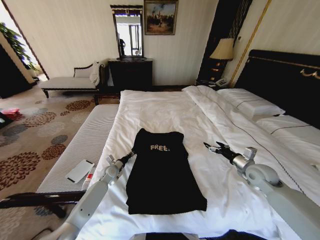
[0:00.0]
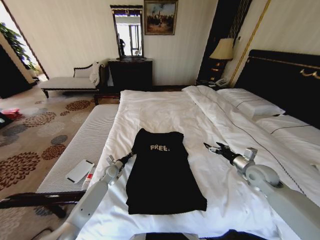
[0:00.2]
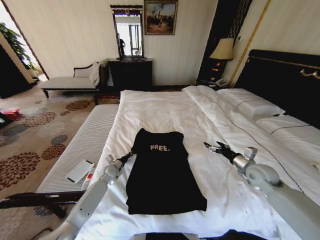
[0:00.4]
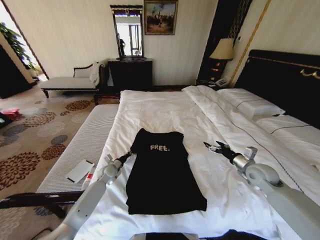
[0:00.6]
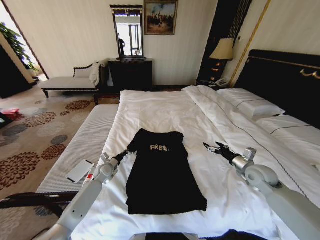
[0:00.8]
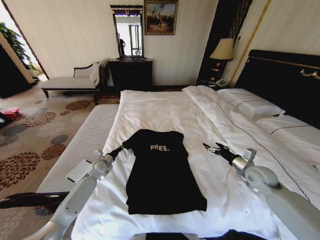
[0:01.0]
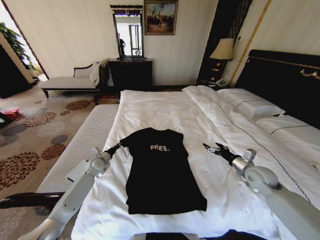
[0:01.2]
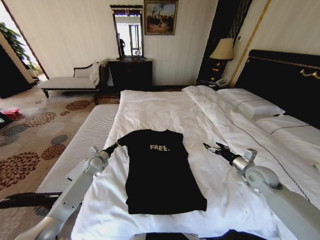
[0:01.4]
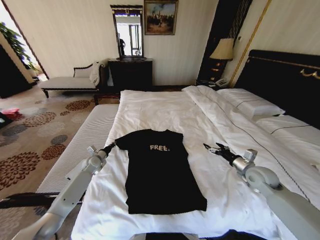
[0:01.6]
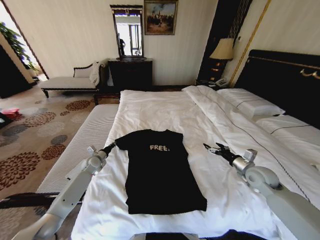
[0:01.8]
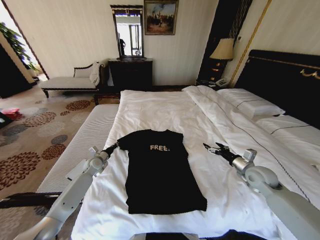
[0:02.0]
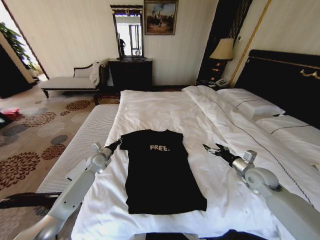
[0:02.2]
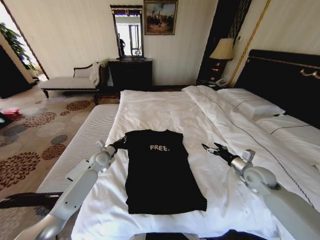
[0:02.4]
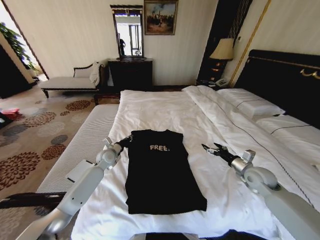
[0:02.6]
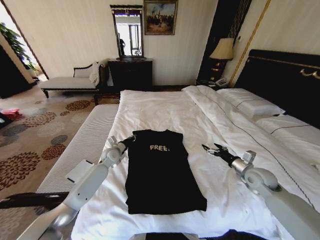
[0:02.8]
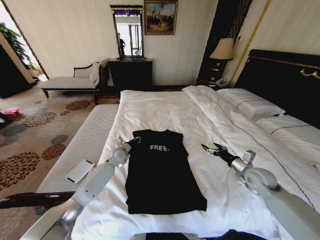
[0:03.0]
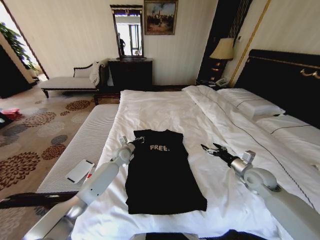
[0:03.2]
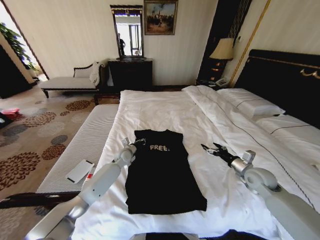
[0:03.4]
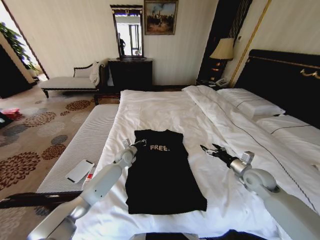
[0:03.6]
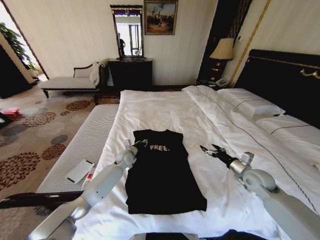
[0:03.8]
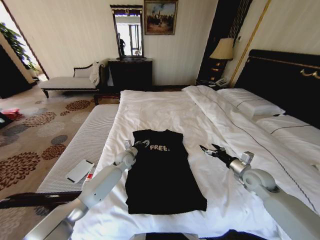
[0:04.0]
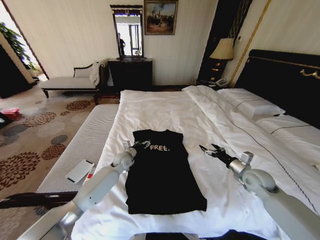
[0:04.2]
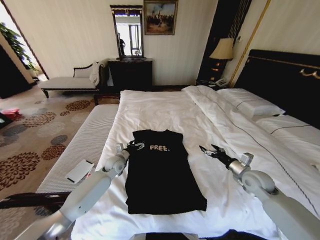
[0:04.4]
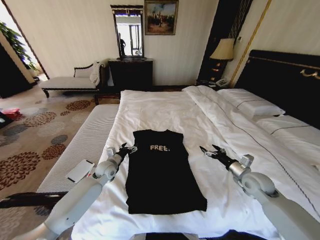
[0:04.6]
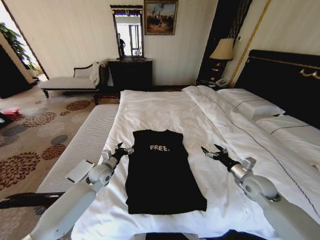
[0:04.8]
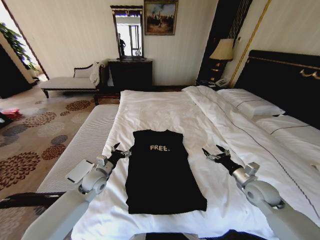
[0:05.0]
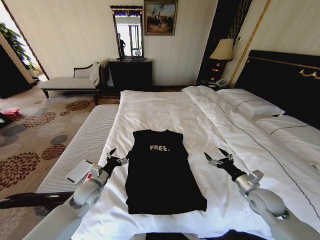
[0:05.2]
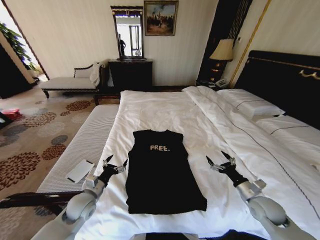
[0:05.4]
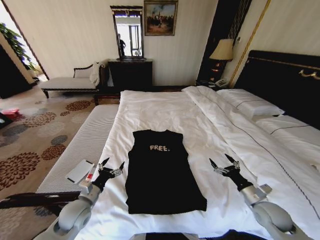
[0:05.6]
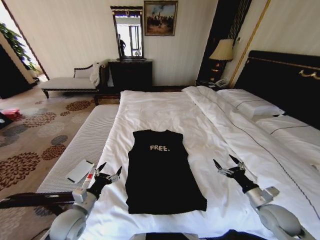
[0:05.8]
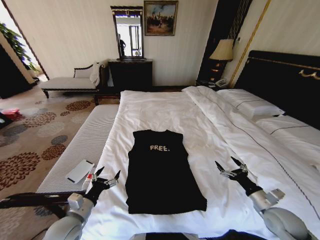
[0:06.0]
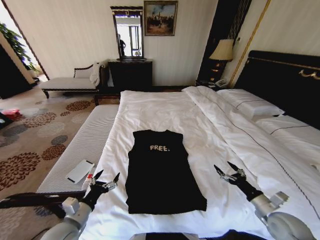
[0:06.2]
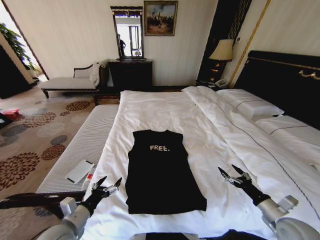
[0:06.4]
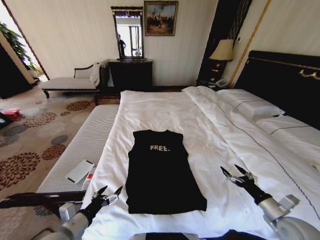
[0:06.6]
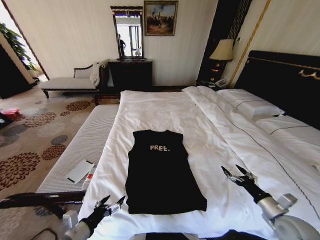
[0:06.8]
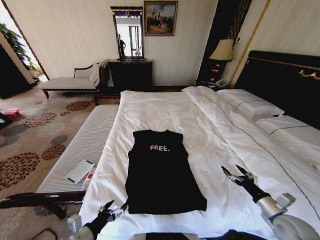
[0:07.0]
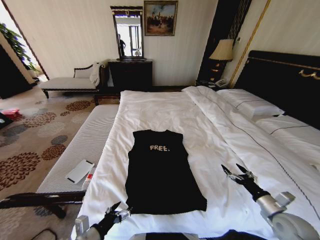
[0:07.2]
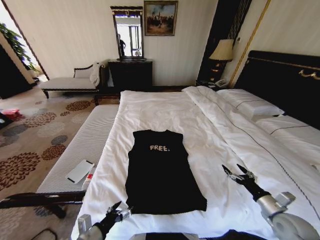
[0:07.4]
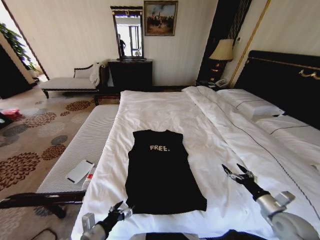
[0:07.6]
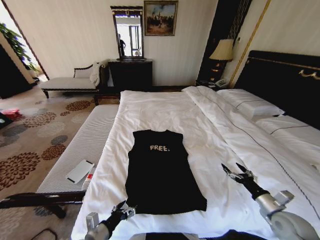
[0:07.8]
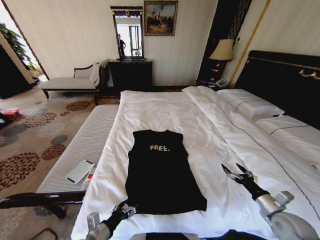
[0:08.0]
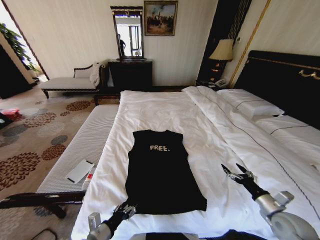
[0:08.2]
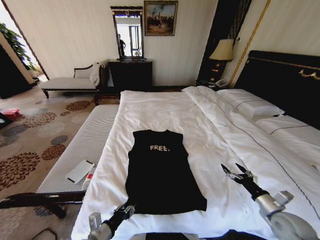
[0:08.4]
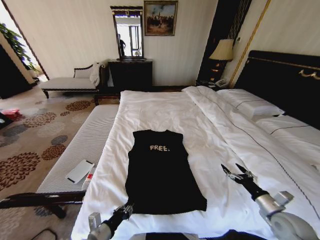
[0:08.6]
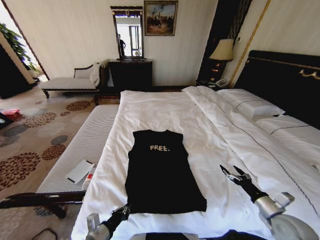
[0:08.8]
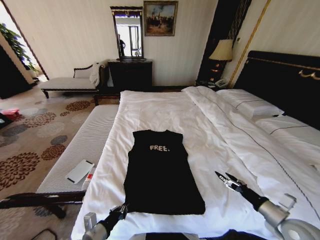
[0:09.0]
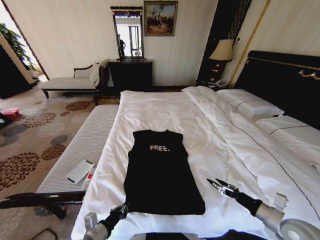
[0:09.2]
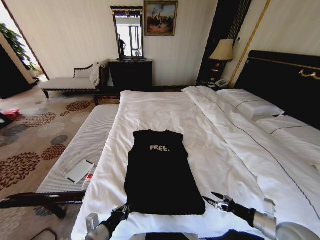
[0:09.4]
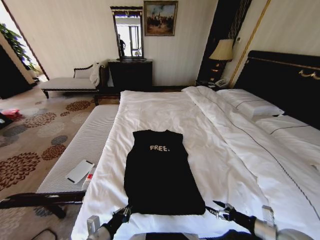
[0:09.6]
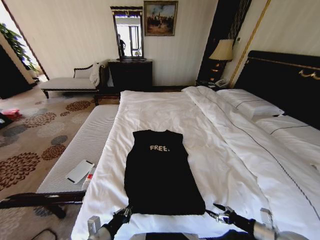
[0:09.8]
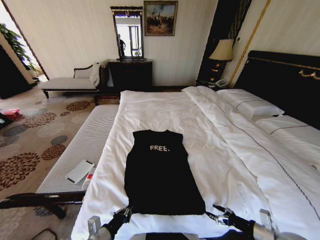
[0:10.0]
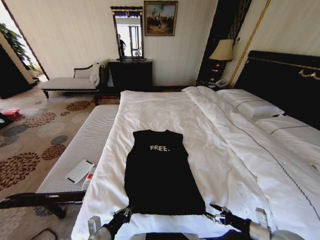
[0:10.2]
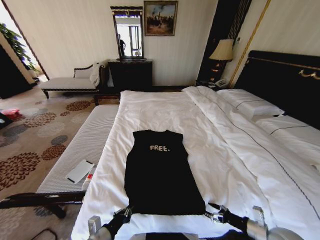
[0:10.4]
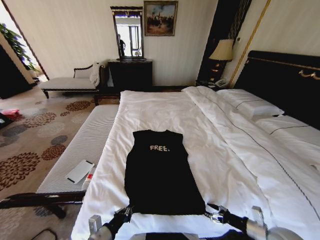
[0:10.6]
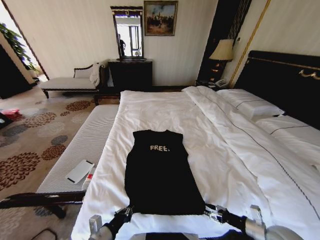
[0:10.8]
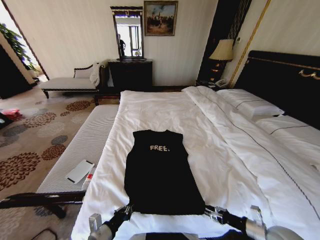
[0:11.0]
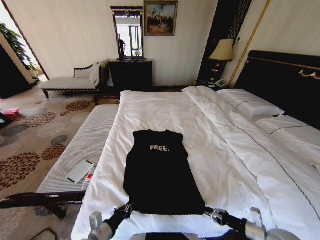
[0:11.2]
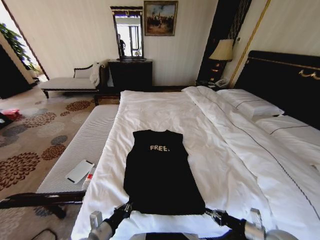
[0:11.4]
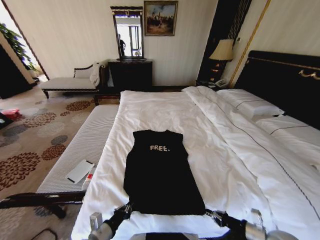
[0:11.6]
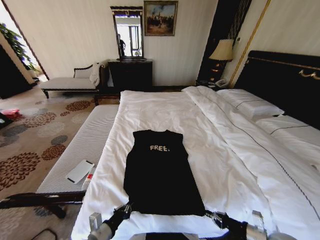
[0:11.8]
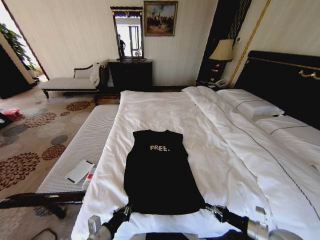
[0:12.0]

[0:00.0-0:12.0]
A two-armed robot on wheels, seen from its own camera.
Task of the whole recording: Fold the clothes on the bed.
0:00.0 to 0:01.6: The left gripper shifts roughly 10 cm to the left and upward.
0:01.6 to 0:03.0: The left gripper heads to the right, covering about 15 cm.
0:03.0 to 0:04.4: The left gripper opens its fingers.
0:04.4 to 0:06.0: The left gripper moves backward, approximately 25 cm. Meanwhile the right gripper heads backward and downward, covering roughly 15 cm.
0:06.0 to 0:07.6: The left gripper heads backward, covering approximately 5 cm.
0:07.6 to 0:09.0: The left gripper closes its fingers.
0:09.0 to 0:10.4: The right gripper shifts approximately 5 cm downward.
0:10.4 to 0:12.0: The right gripper closes up.

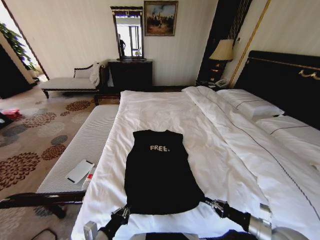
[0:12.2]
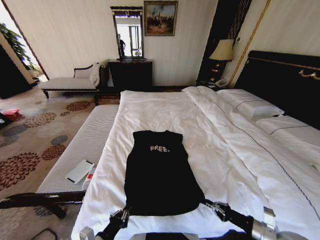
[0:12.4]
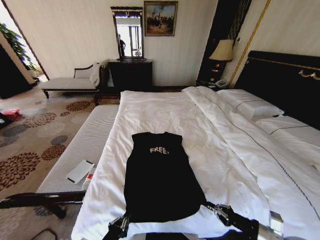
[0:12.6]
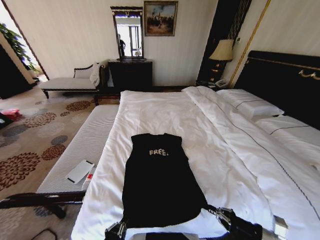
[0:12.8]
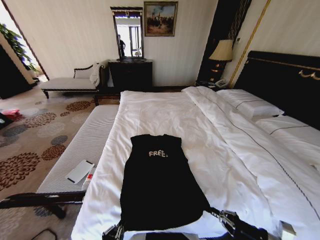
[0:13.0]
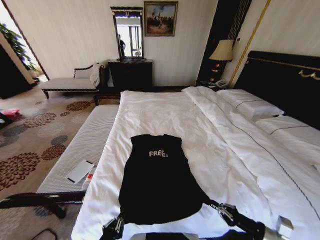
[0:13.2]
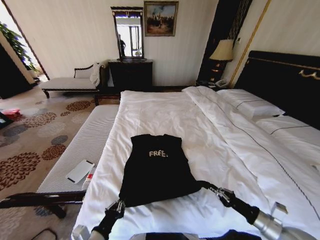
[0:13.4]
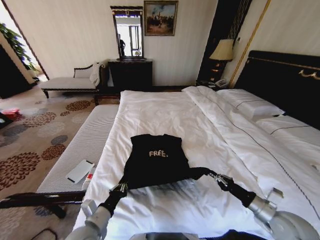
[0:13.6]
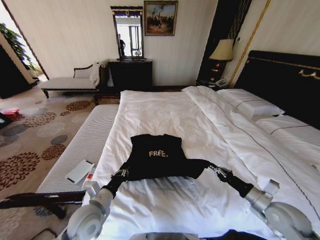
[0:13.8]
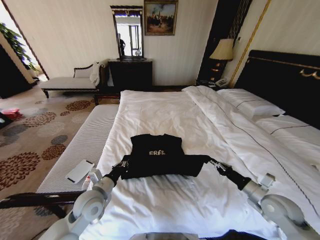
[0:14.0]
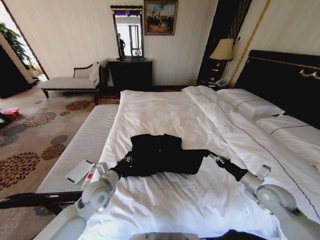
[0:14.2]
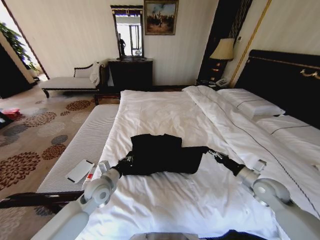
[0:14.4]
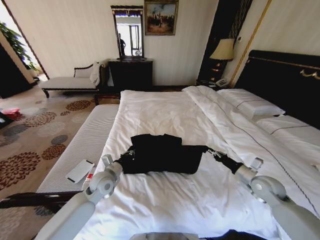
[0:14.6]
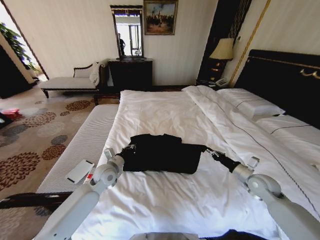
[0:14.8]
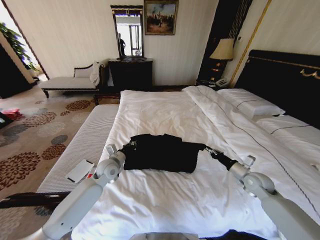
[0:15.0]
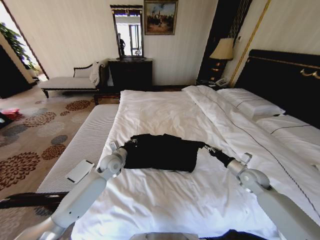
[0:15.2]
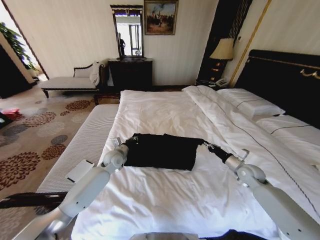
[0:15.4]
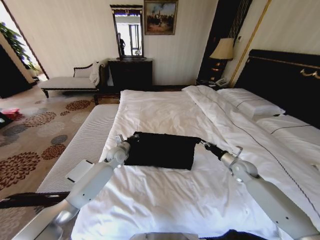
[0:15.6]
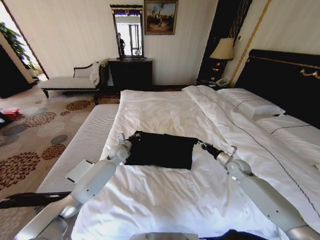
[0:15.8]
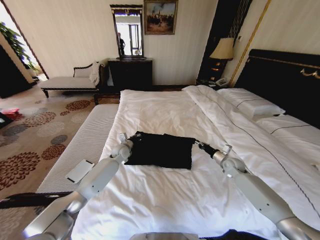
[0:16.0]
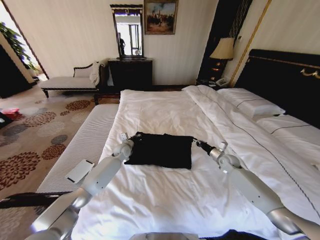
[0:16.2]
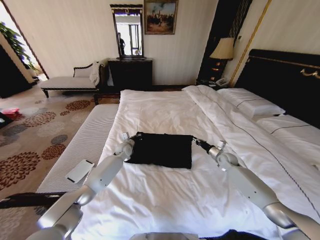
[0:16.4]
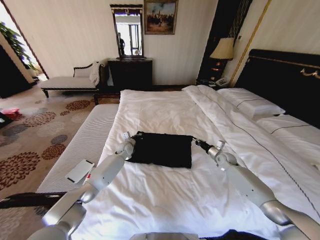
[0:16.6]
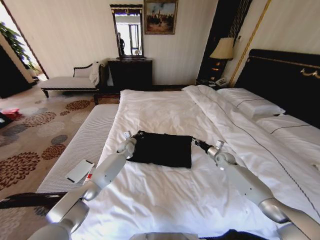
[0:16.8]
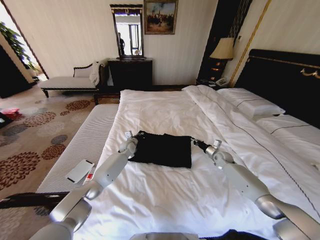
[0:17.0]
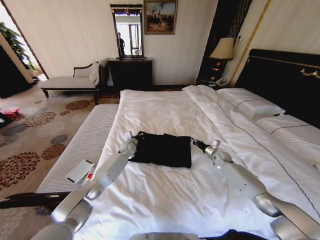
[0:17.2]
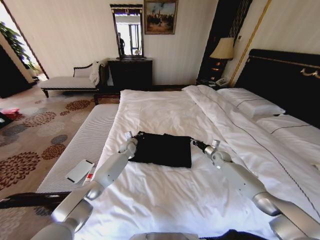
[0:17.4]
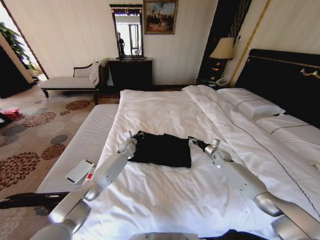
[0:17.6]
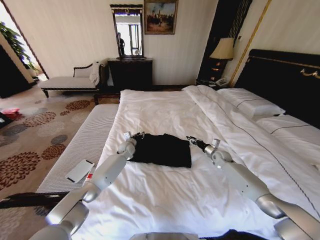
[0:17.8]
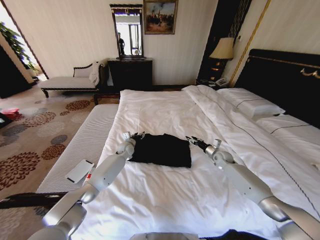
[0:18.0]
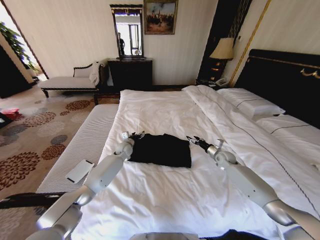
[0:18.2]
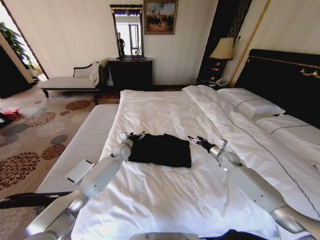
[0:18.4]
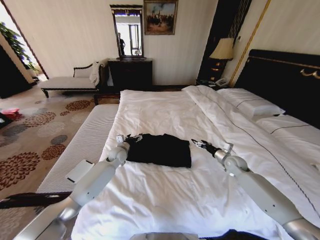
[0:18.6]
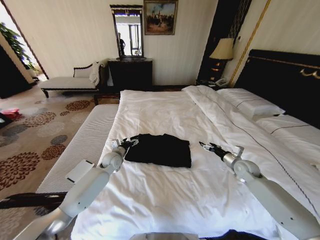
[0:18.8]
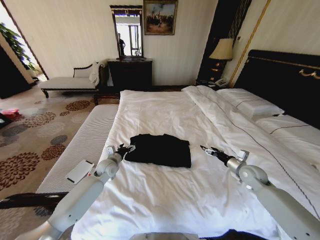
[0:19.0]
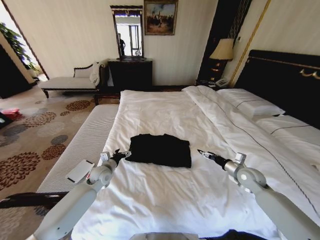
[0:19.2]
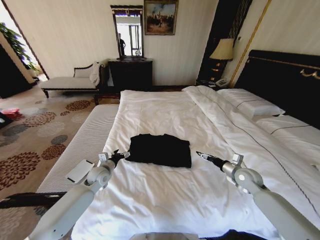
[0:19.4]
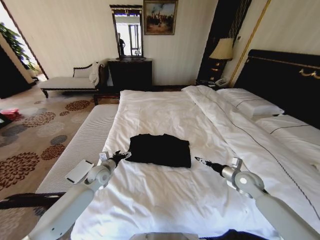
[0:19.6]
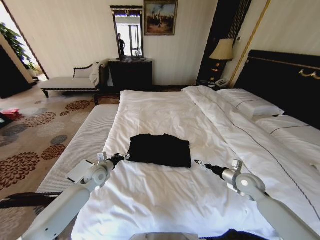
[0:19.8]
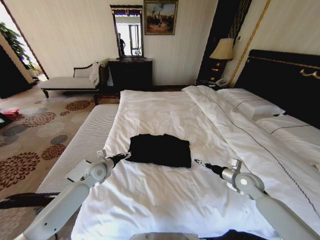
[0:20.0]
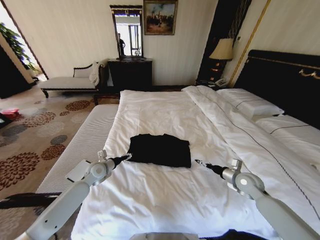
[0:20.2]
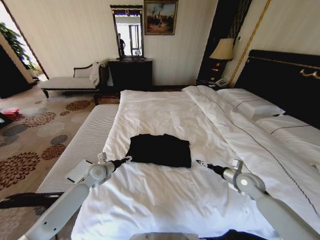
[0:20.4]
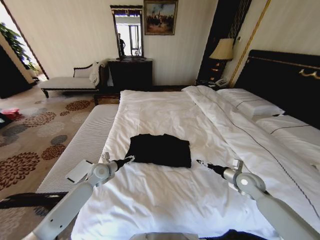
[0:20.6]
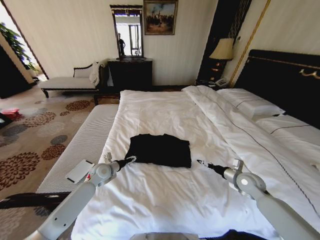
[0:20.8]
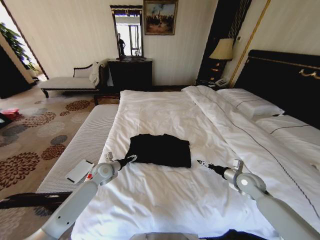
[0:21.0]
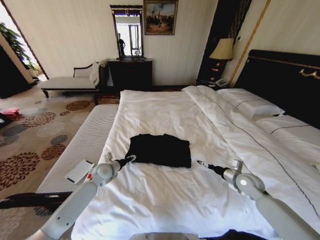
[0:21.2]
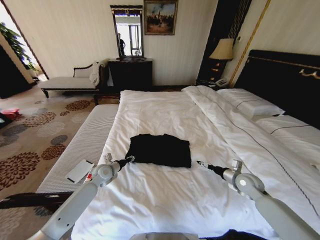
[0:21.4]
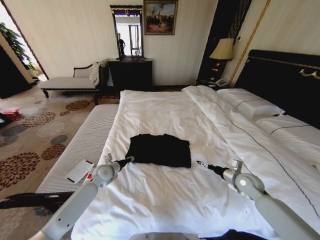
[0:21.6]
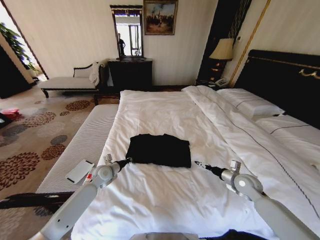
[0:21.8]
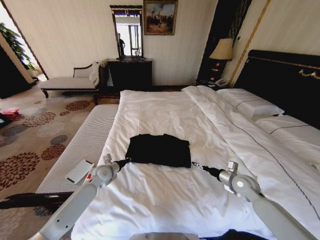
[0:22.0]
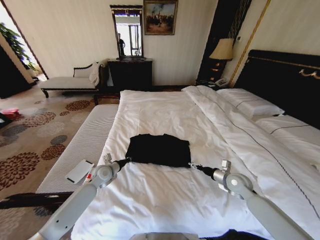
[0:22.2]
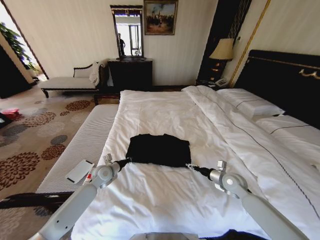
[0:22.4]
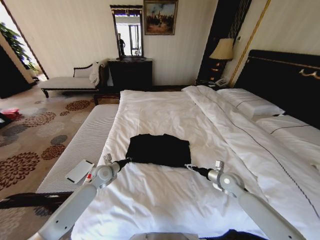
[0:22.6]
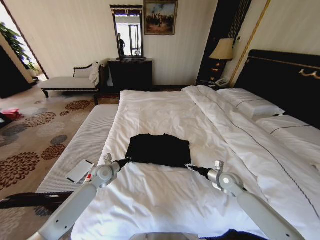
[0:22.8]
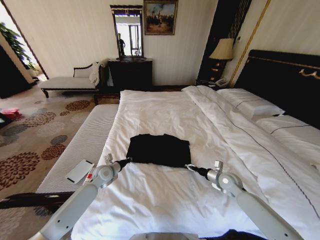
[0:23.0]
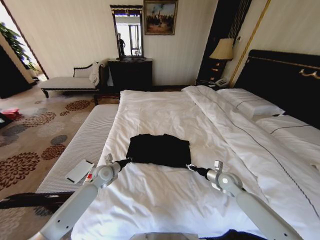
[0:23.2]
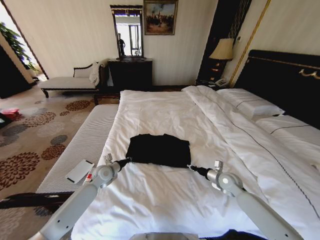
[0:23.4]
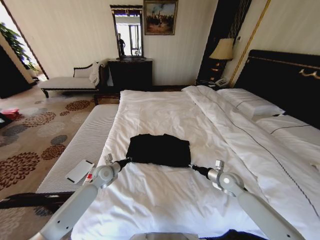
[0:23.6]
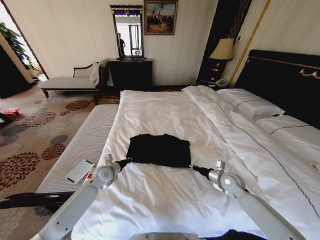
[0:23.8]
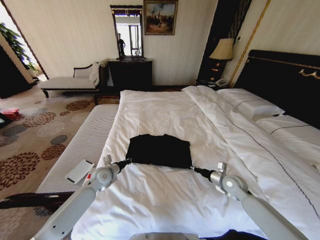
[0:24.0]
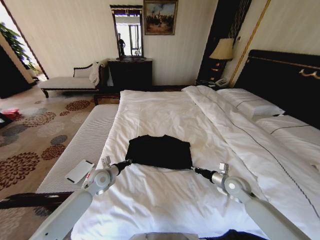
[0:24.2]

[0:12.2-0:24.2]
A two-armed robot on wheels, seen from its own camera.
Task of the whole recording: Fold the clothes on the bed.
0:12.2 to 0:13.8: The left gripper goes about 15 cm forward and upward, while the right gripper travels forward and upward by about 10 cm.
0:13.8 to 0:15.2: The two grippers go approximately 20 cm forward.
0:15.2 to 0:16.6: Both grippers move forward, roughly 15 cm.
0:16.6 to 0:18.2: The left gripper opens up. The right gripper opens up.
0:18.2 to 0:19.8: The left gripper goes some 20 cm backward and to the left. The right gripper is displaced backward by some 15 cm.
0:21.2 to 0:22.6: The right gripper heads to the left, covering approximately 5 cm, while the left gripper closes its fingers.
0:22.6 to 0:24.2: The right gripper closes its fingers.
